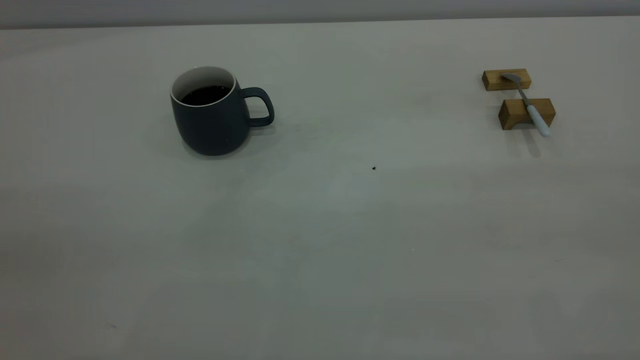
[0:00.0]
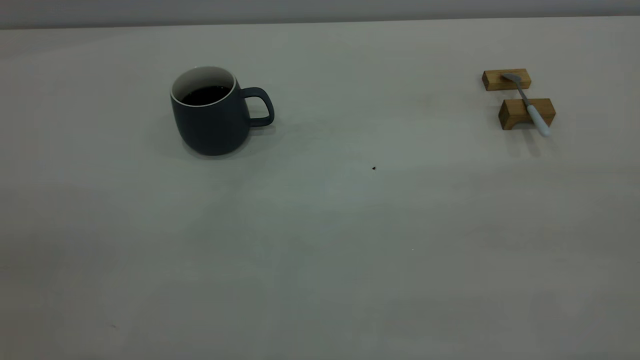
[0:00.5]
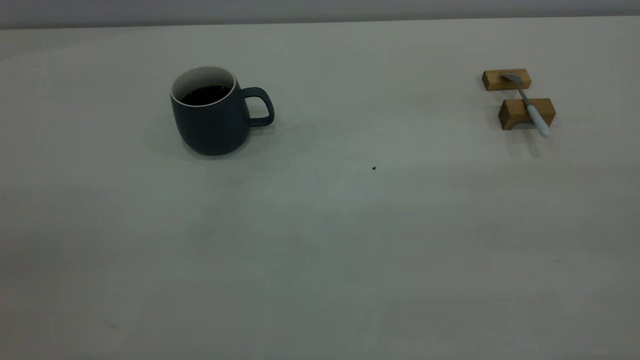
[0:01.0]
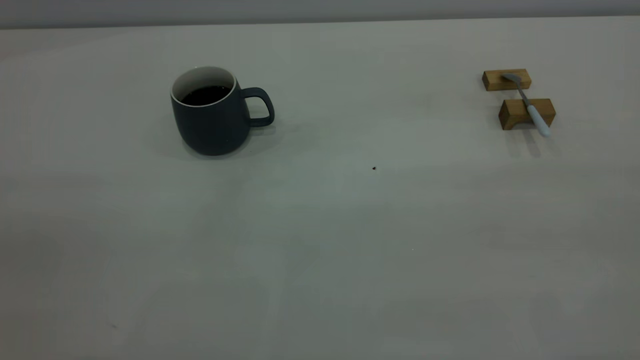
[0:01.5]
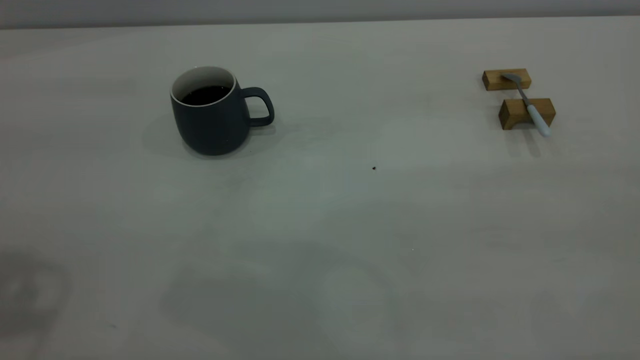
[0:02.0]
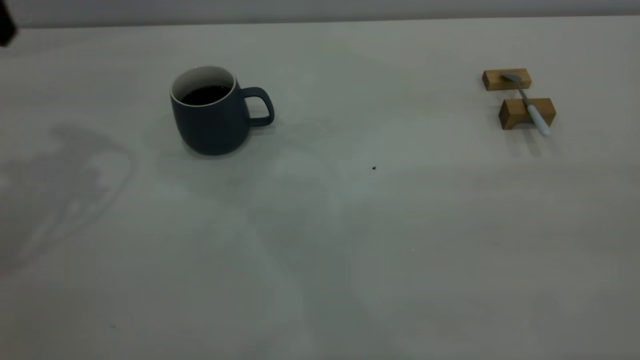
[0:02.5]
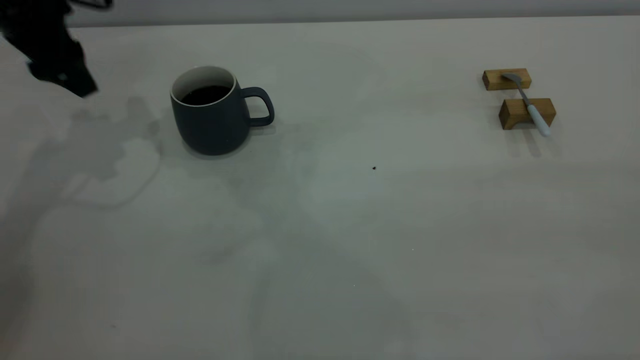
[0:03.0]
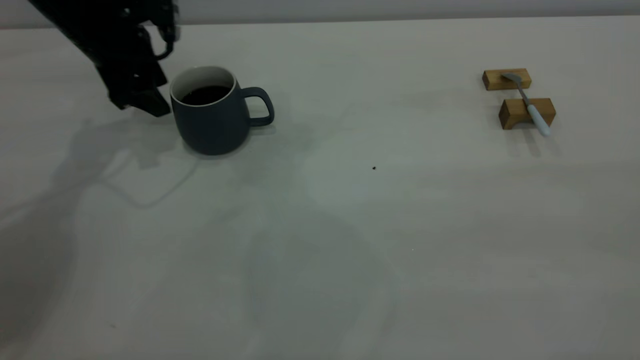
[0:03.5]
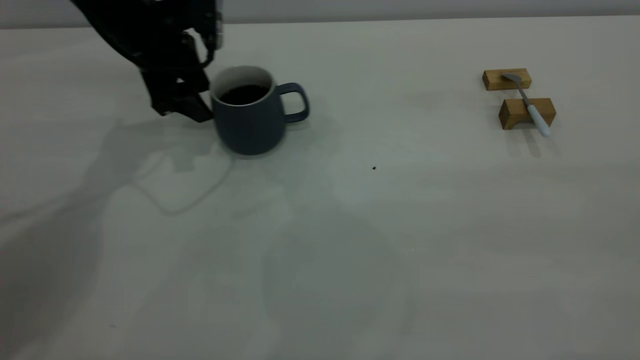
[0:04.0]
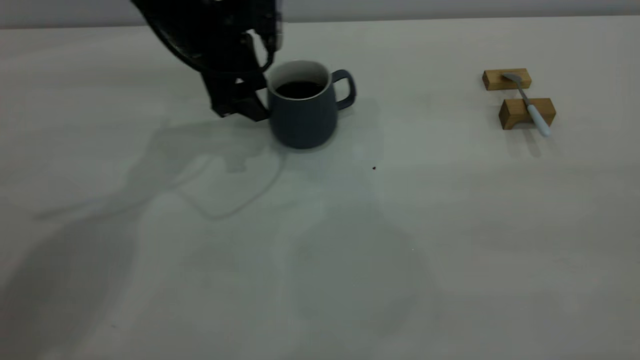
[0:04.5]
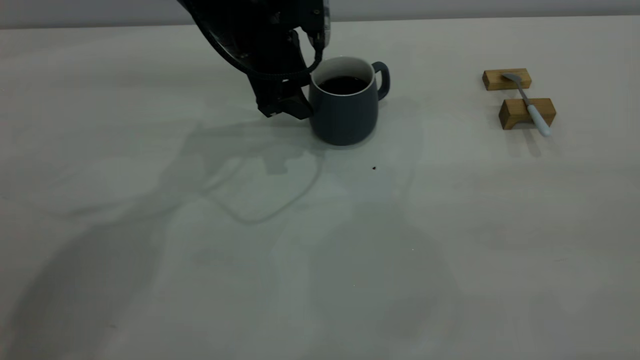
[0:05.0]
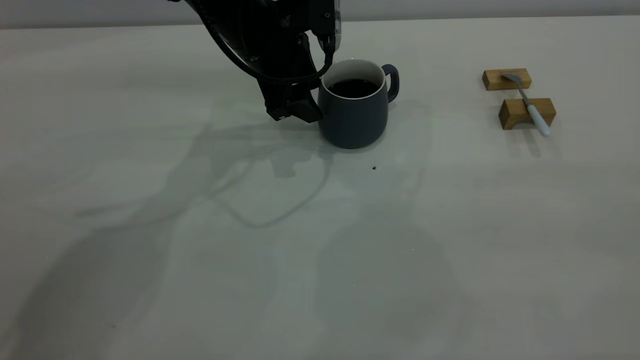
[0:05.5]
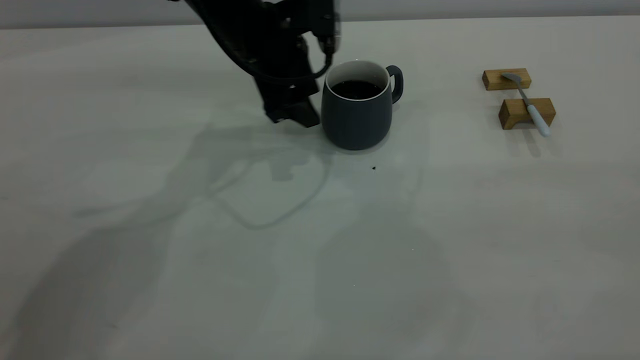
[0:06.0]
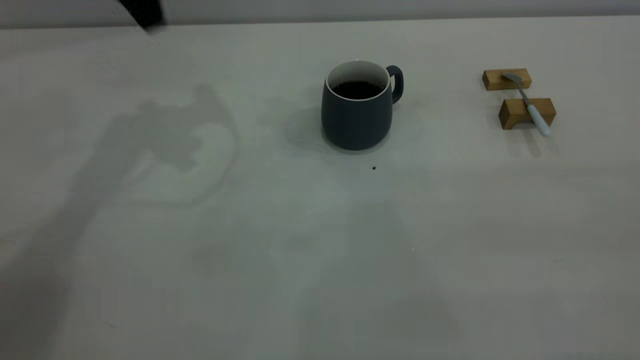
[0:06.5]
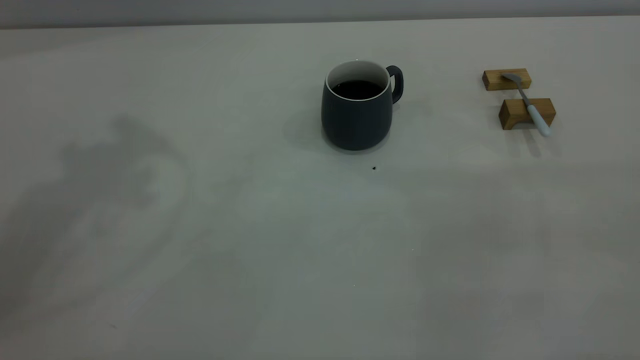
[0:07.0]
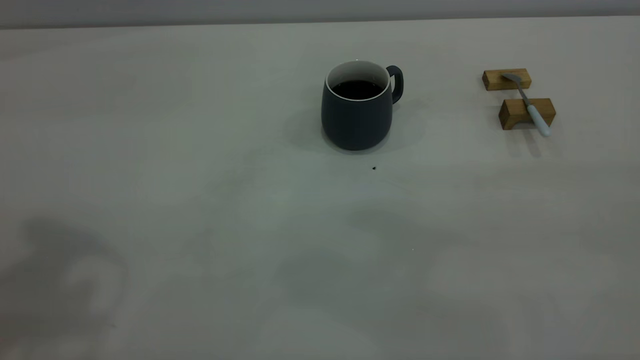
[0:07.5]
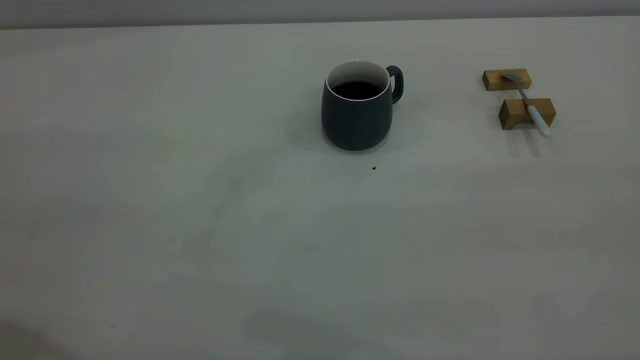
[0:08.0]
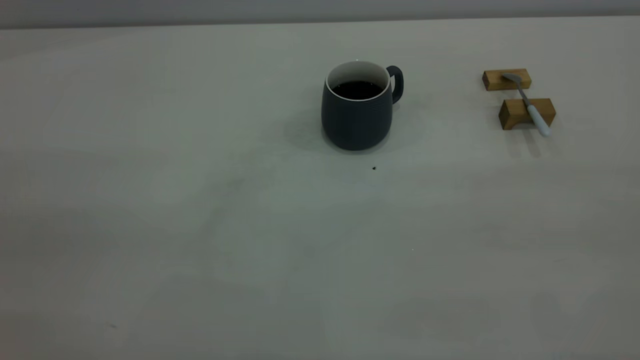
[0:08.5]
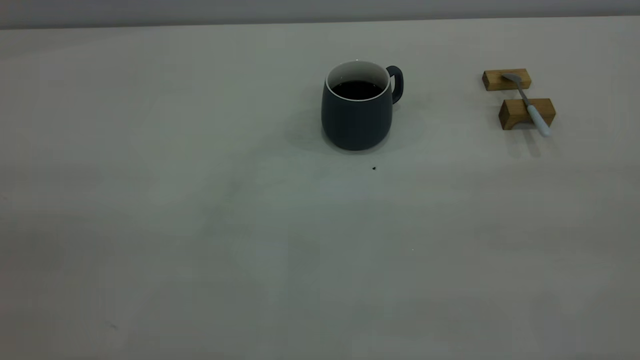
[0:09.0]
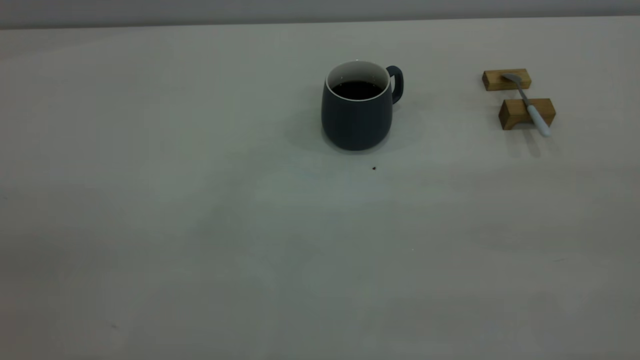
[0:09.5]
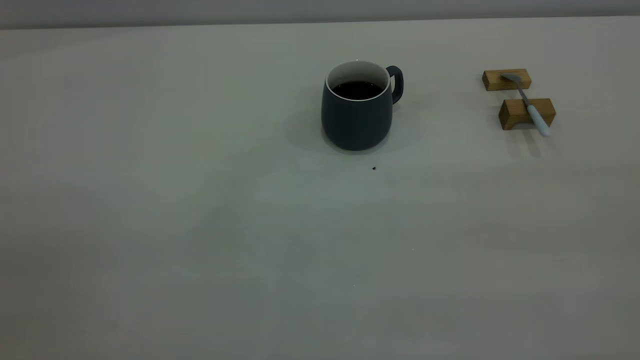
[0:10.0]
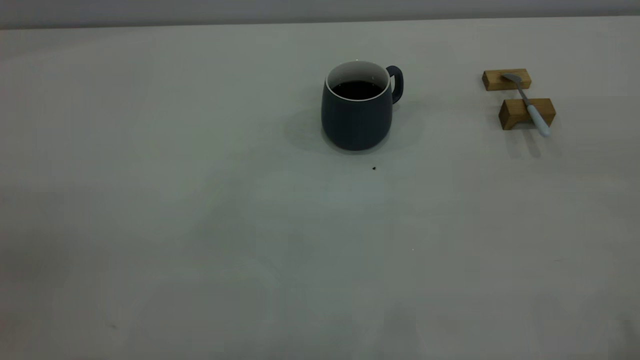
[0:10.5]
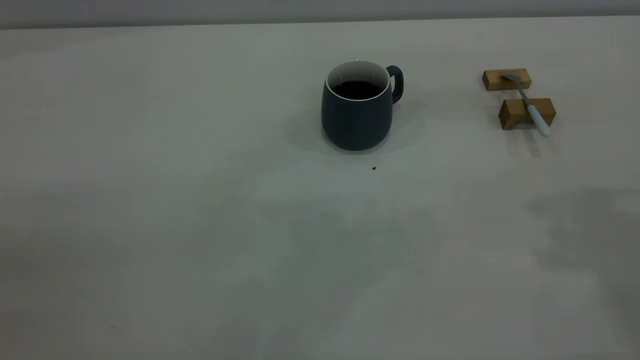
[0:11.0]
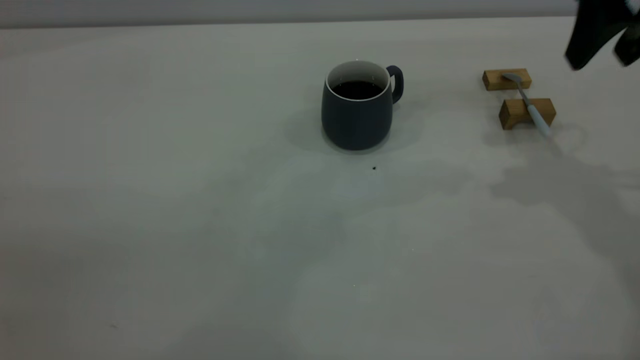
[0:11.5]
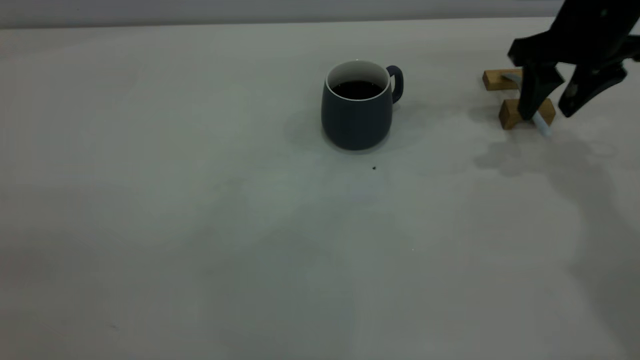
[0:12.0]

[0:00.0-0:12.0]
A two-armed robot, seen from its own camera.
Step, 0:00.0 to 0:06.0: Move the cup with coffee to the center of view.
0:02.0 to 0:04.0: The left gripper goes some 35 cm forward and downward.
0:04.0 to 0:06.0: The left gripper travels to the right by some 10 cm.
0:06.0 to 0:08.0: The left gripper goes roughly 40 cm backward, upward and to the left.
0:10.0 to 0:12.0: The right gripper shifts about 50 cm forward and downward, and opens its fingers.

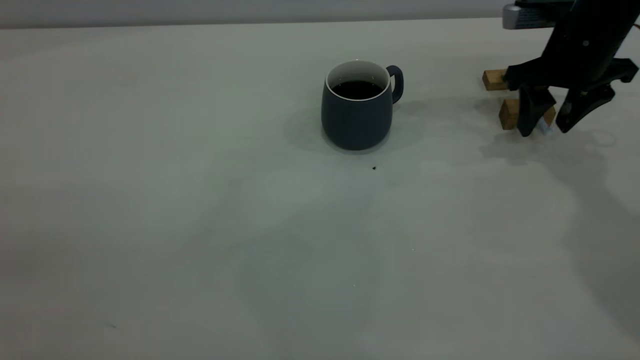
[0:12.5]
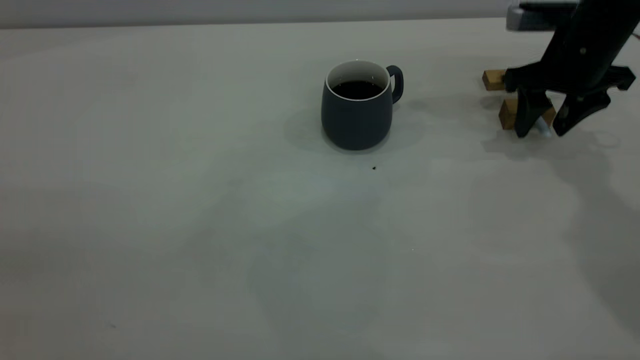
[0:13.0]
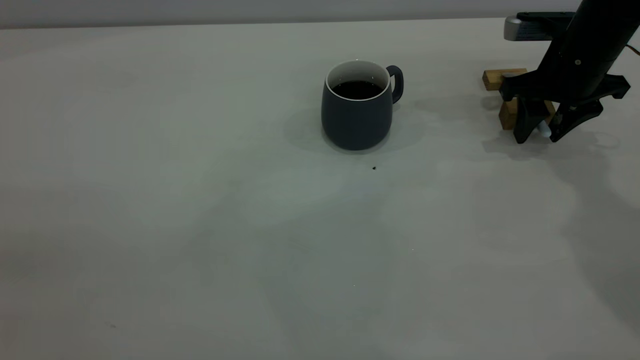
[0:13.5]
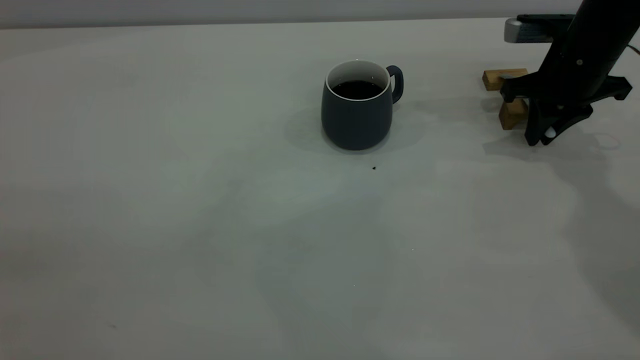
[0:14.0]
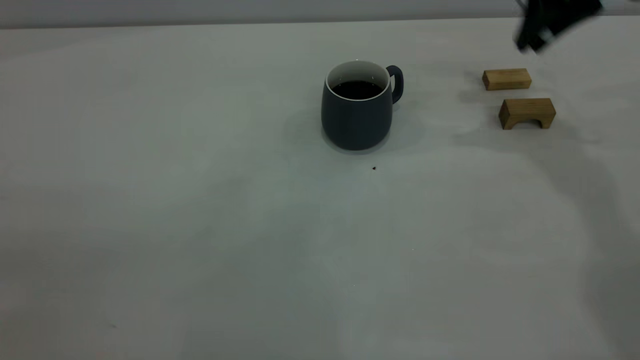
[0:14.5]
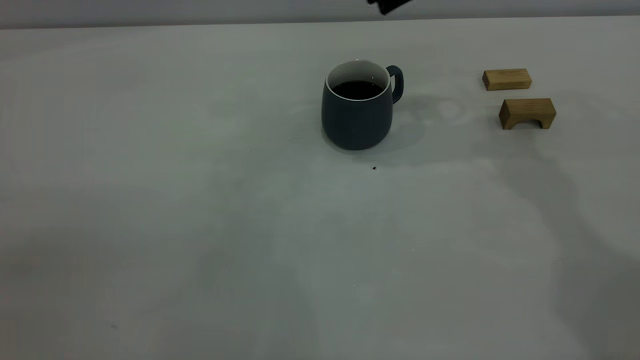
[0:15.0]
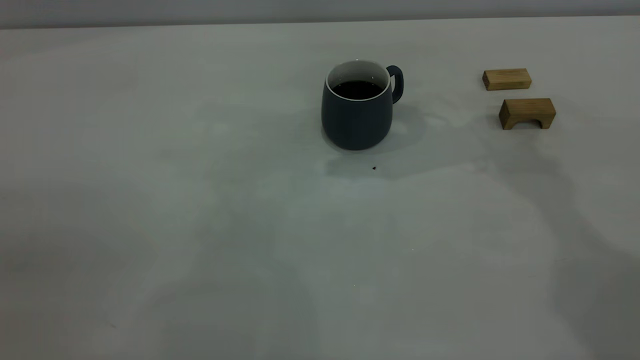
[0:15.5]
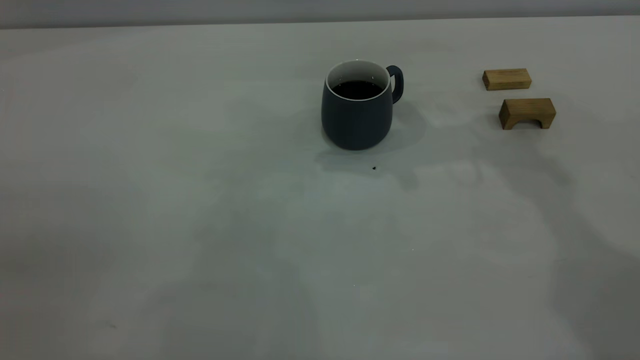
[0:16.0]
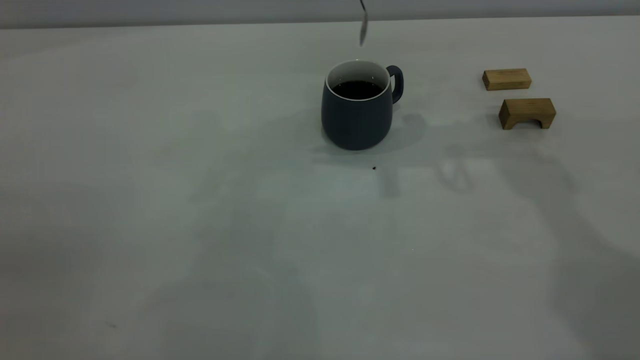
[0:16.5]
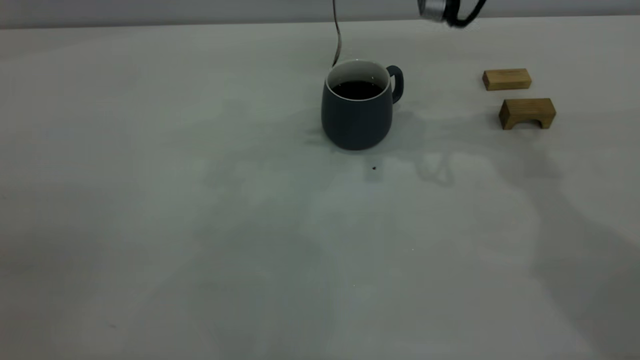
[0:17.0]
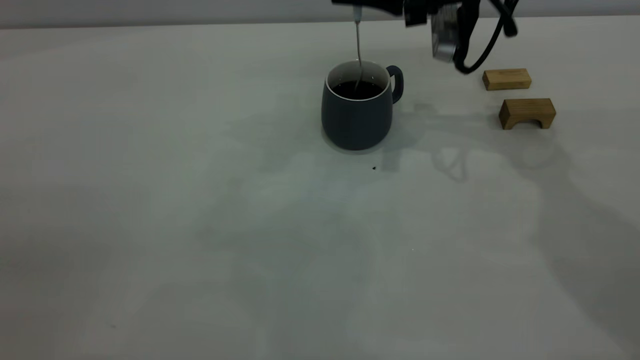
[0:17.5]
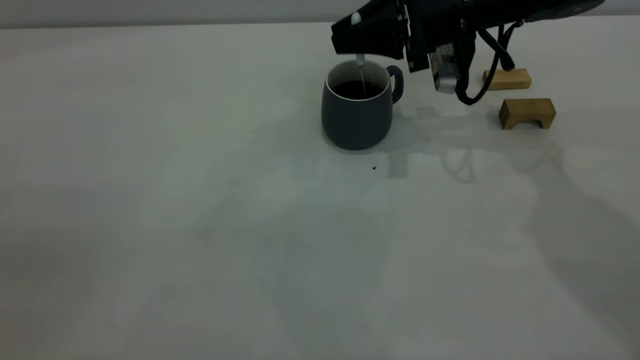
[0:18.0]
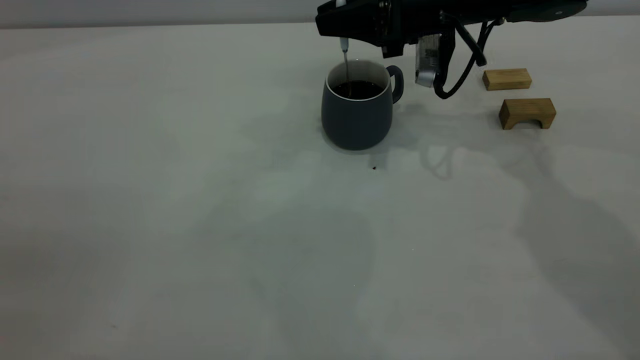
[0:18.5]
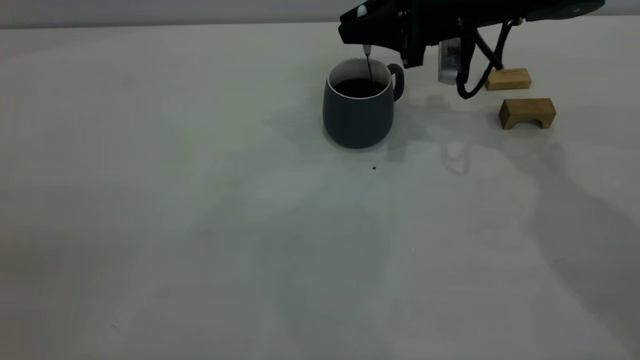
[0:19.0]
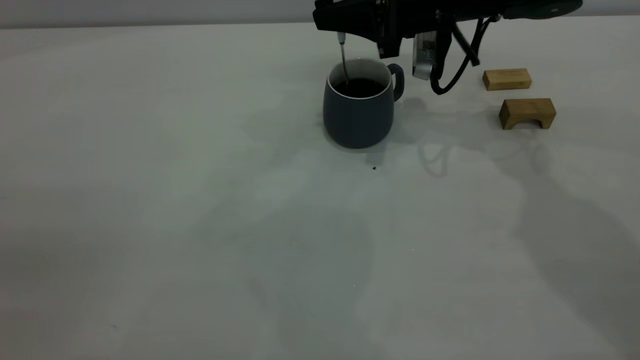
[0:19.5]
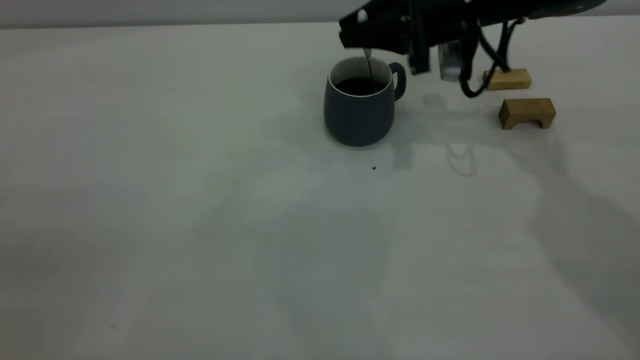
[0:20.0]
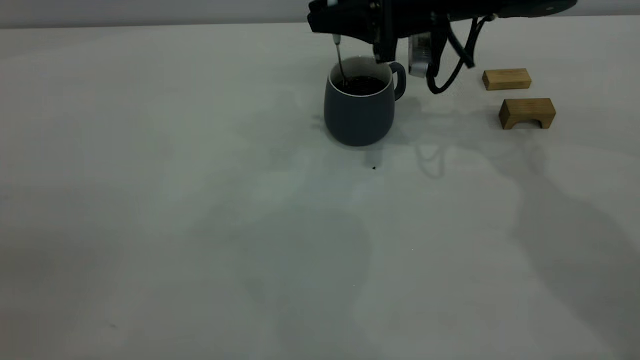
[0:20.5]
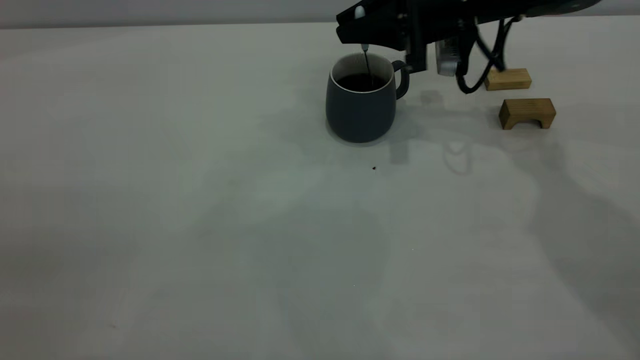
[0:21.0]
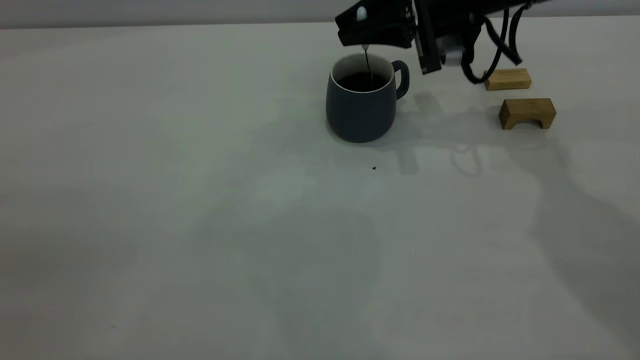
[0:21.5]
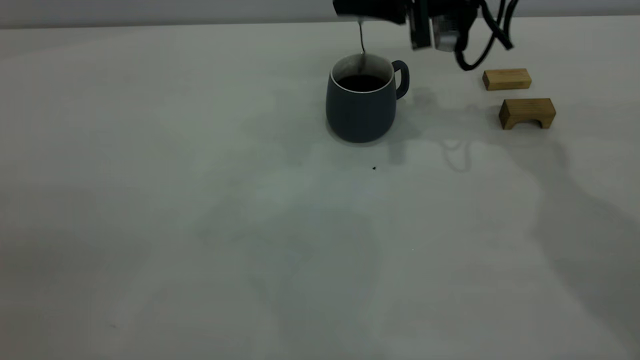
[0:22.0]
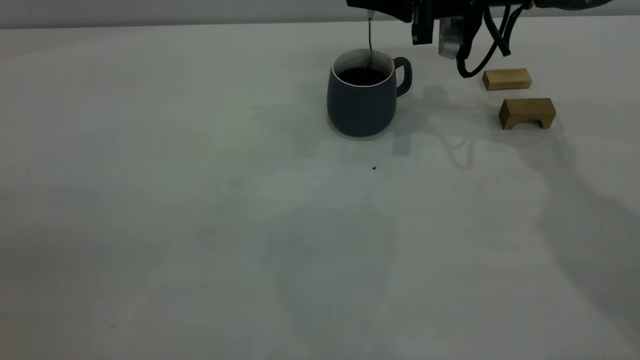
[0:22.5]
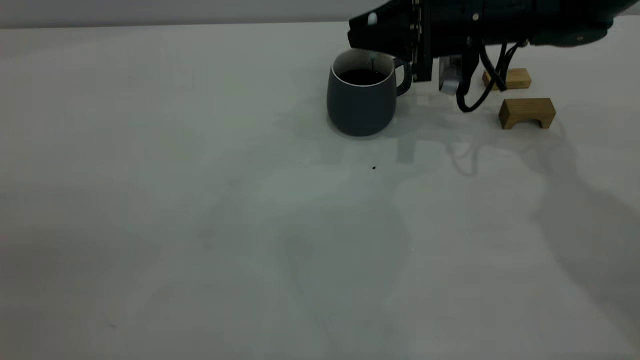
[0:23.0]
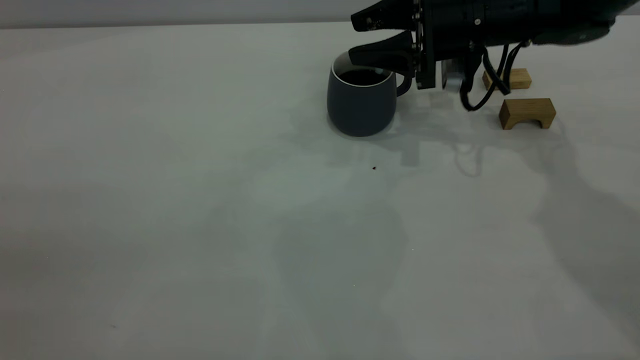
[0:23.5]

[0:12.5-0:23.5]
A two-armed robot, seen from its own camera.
0:12.5 to 0:14.5: The right gripper shifts about 10 cm upward, and closes up.
0:14.5 to 0:16.0: The right gripper goes roughly 10 cm to the left.
0:16.0 to 0:18.0: The right gripper travels downward by about 15 cm.
0:18.0 to 0:20.0: The grippers move only a little.
0:20.0 to 0:21.5: The grippers move only a little.
0:21.5 to 0:23.5: The right gripper opens its fingers.
